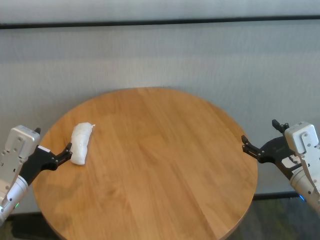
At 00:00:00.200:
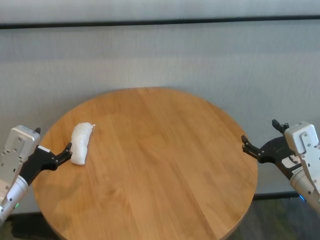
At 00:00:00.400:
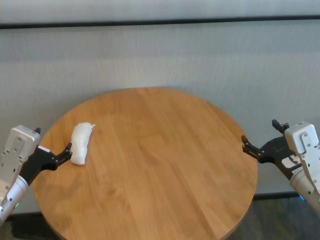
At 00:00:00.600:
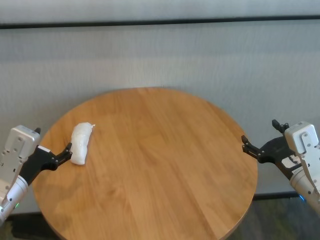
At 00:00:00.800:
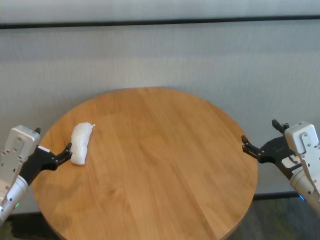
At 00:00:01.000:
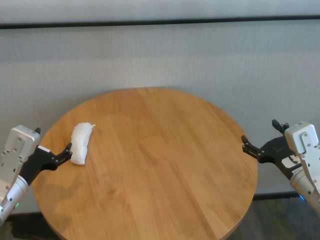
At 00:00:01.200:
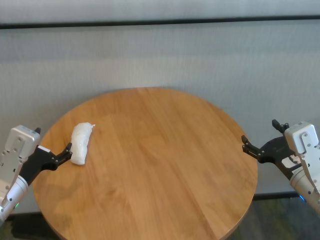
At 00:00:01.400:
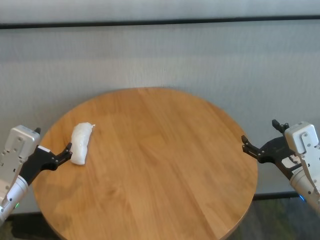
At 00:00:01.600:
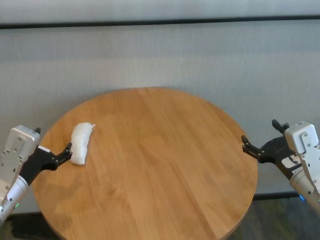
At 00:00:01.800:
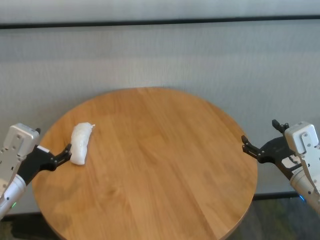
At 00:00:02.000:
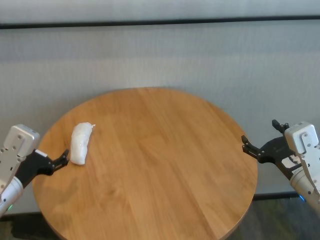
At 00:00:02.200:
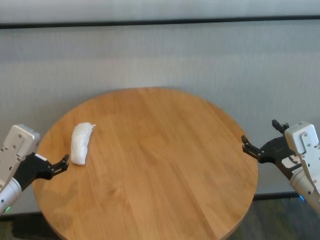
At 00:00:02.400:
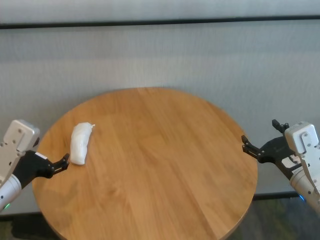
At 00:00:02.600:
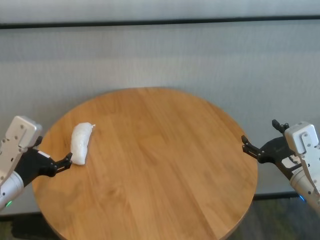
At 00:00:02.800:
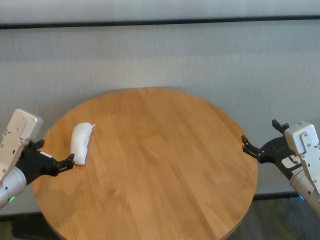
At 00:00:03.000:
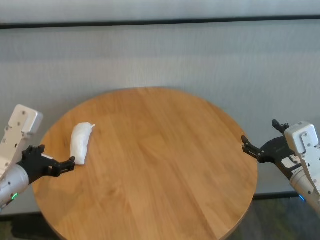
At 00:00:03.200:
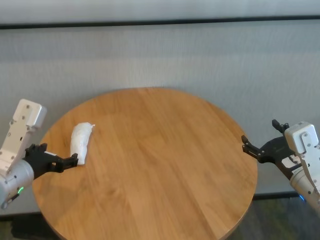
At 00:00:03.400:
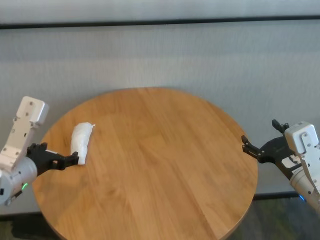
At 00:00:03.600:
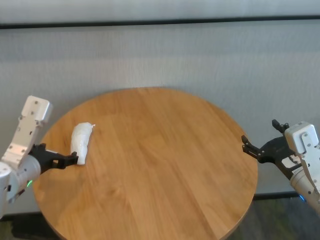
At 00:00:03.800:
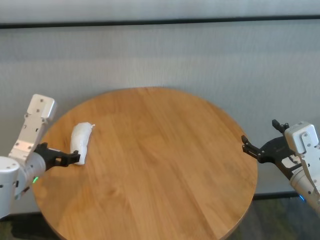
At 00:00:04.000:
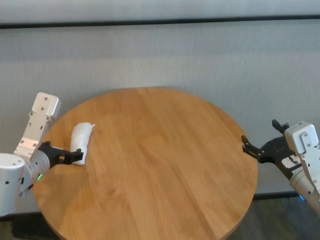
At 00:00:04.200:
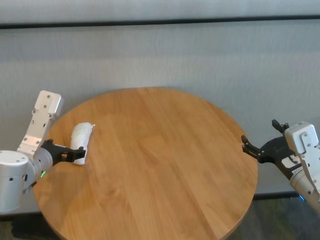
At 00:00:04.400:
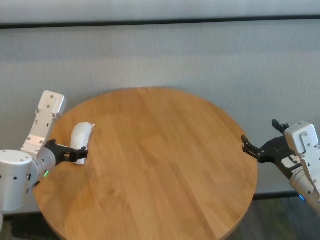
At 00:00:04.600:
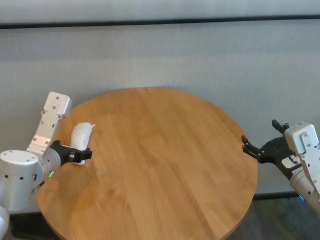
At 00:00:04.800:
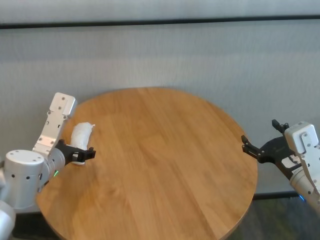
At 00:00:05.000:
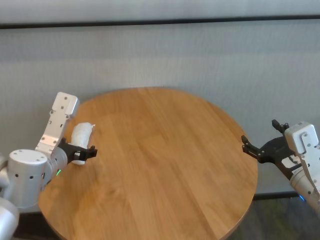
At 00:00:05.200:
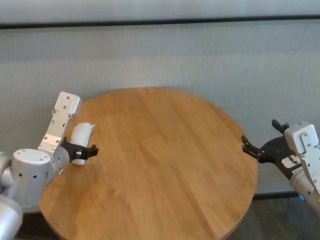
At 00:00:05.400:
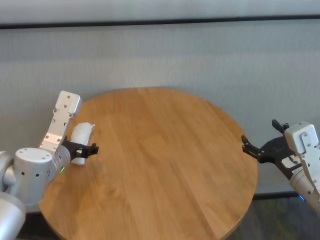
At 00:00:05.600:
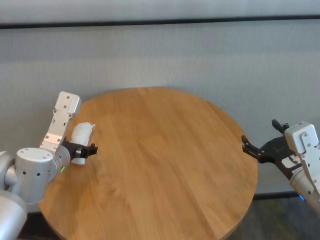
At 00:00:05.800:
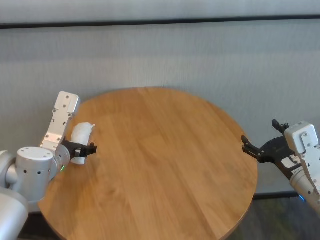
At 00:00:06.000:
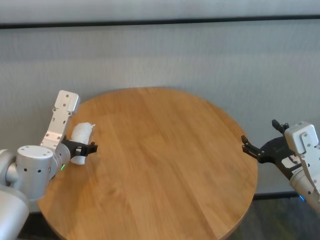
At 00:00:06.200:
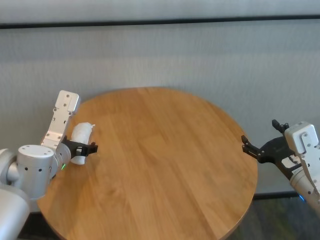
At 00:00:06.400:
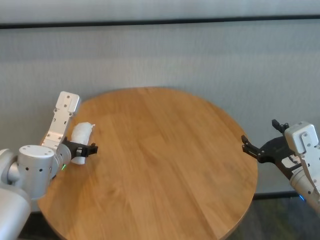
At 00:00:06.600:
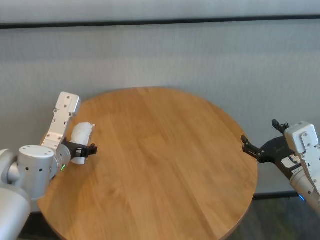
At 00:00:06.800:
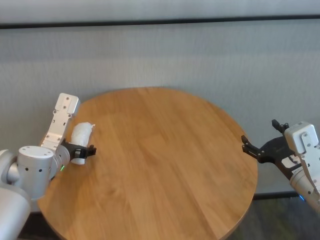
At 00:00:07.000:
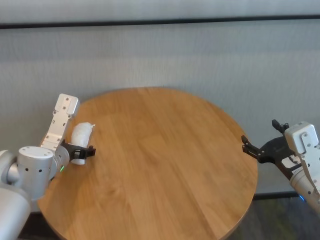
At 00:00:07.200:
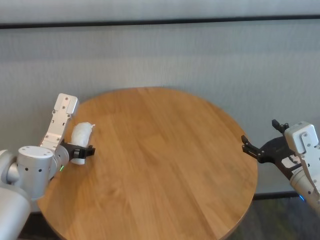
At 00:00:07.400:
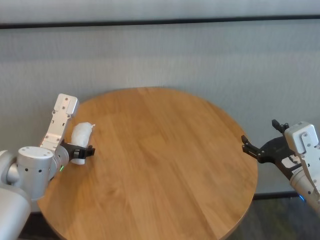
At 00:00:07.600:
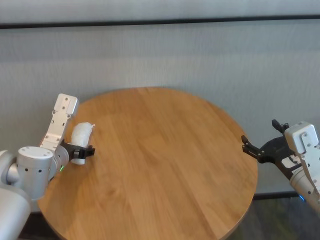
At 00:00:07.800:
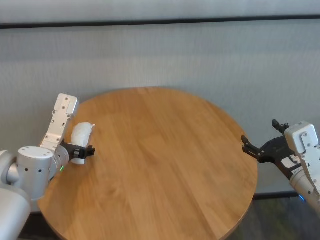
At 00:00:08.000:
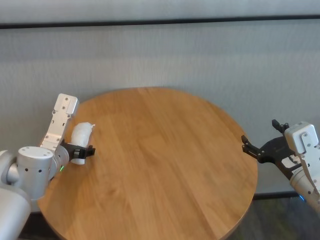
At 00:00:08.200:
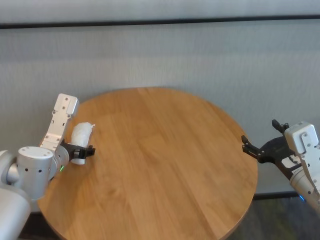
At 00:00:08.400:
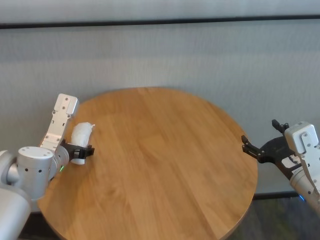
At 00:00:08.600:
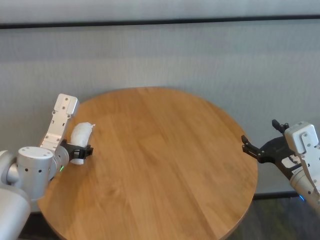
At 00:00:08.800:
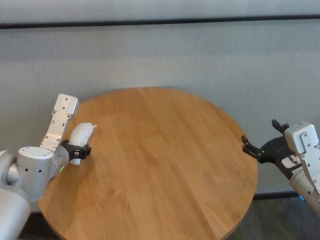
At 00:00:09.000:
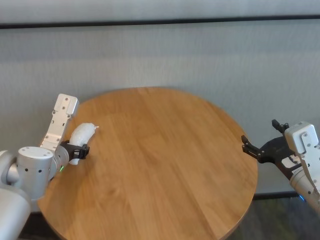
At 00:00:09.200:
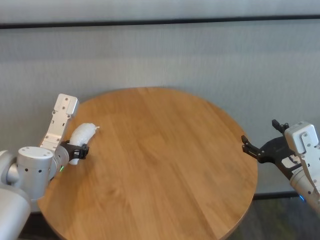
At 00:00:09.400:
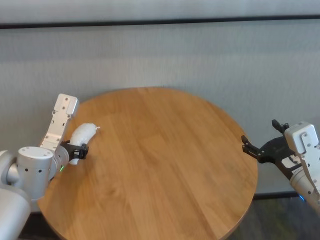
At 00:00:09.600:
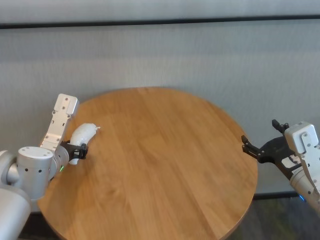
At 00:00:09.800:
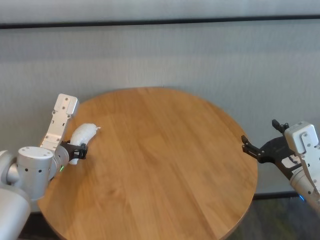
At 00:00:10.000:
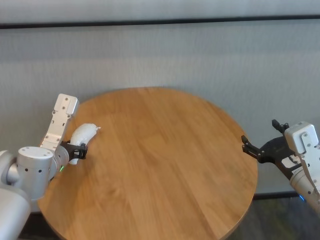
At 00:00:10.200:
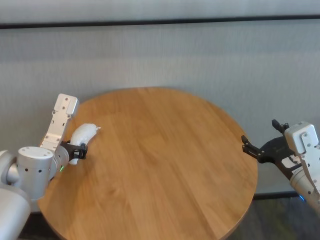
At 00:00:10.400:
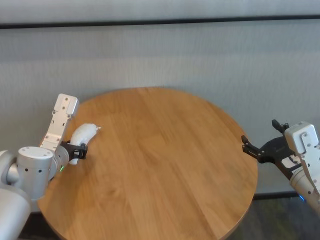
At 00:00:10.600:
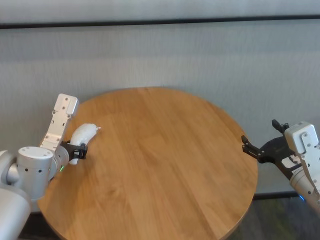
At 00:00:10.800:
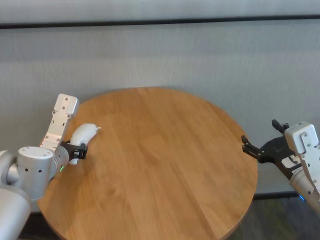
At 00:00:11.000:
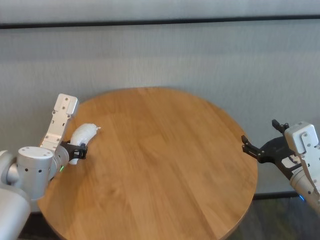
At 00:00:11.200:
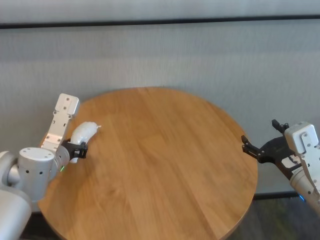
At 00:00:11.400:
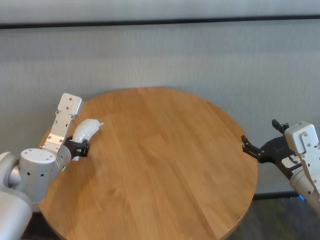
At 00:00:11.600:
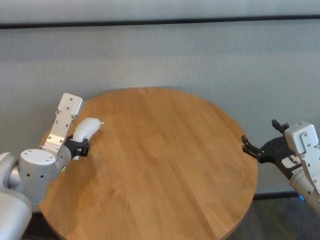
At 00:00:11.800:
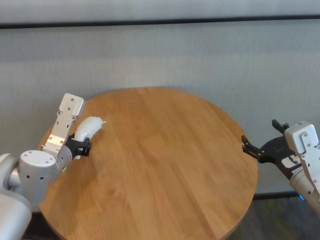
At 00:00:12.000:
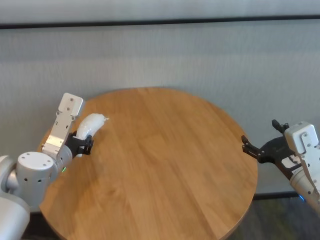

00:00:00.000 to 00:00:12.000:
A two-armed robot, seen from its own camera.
Task of the whole recording: One hand took the sandbag from the other hand and placed it on the table.
Step, 00:00:00.000 to 00:00:09.800: Grasp the paper ball with left gripper.

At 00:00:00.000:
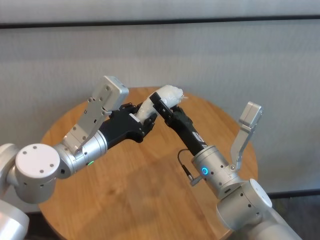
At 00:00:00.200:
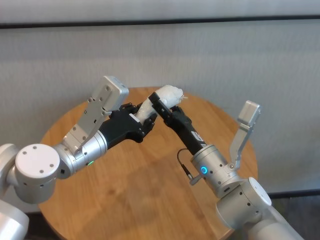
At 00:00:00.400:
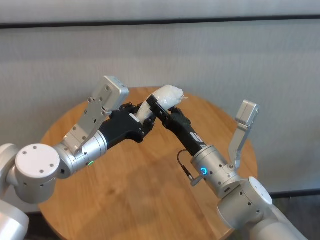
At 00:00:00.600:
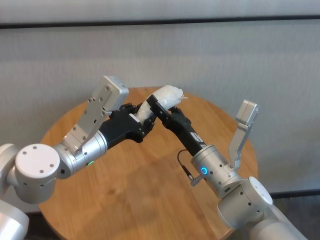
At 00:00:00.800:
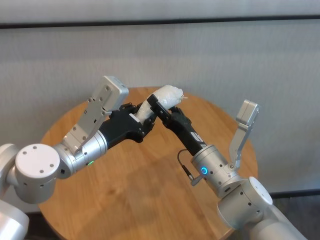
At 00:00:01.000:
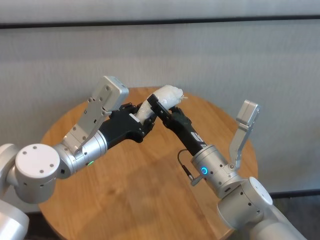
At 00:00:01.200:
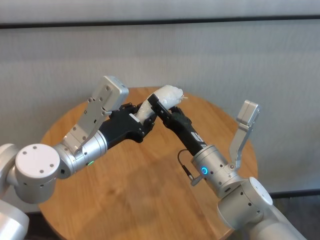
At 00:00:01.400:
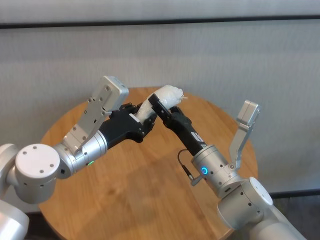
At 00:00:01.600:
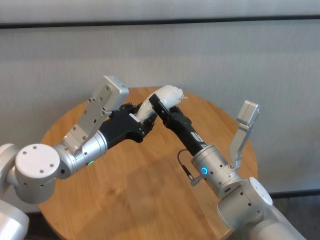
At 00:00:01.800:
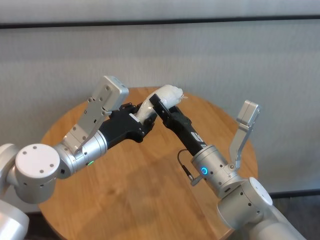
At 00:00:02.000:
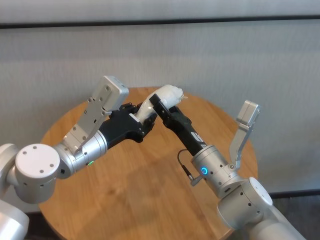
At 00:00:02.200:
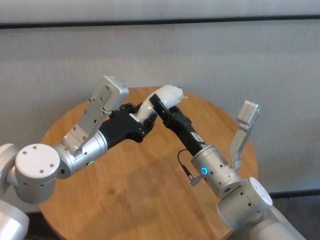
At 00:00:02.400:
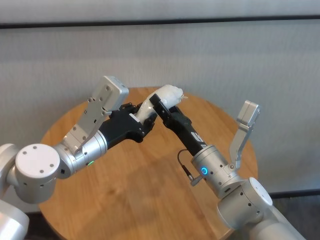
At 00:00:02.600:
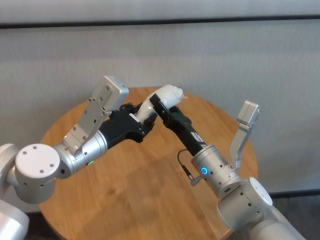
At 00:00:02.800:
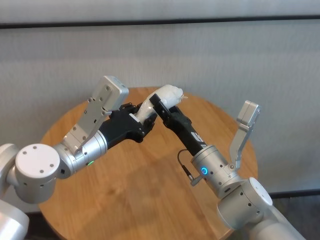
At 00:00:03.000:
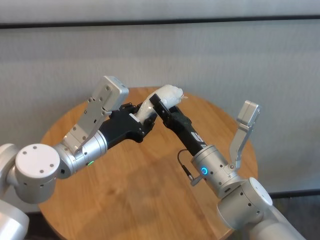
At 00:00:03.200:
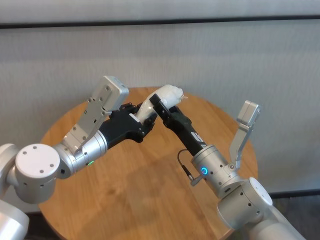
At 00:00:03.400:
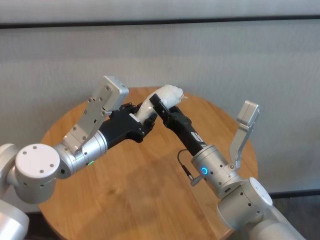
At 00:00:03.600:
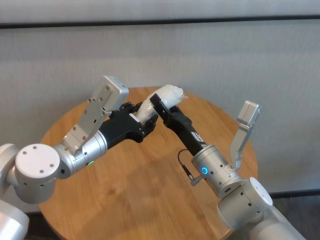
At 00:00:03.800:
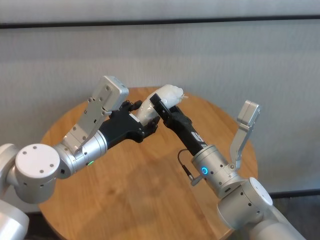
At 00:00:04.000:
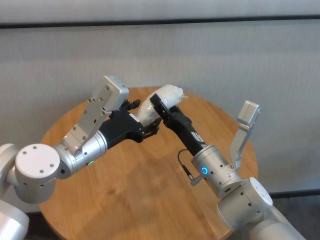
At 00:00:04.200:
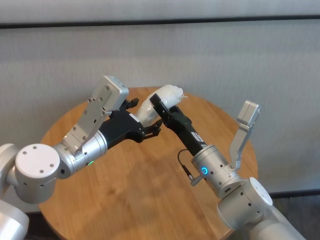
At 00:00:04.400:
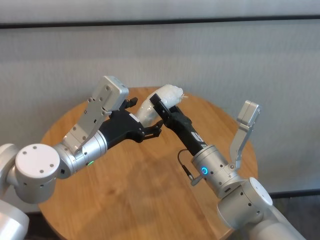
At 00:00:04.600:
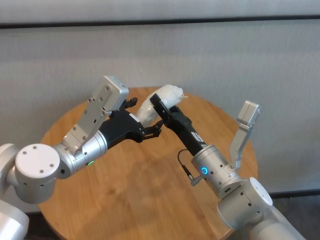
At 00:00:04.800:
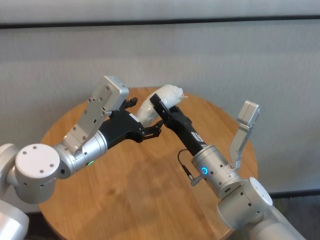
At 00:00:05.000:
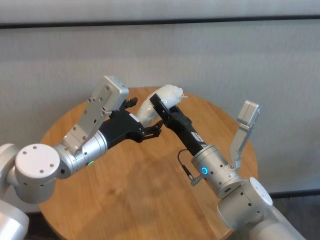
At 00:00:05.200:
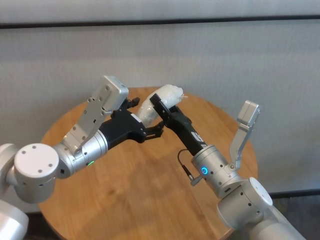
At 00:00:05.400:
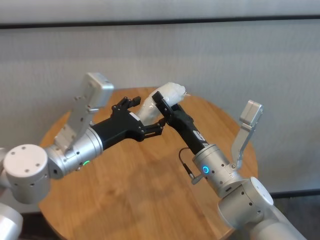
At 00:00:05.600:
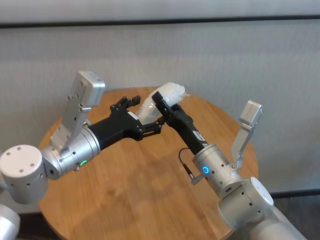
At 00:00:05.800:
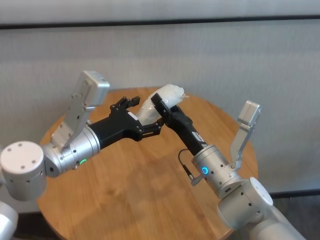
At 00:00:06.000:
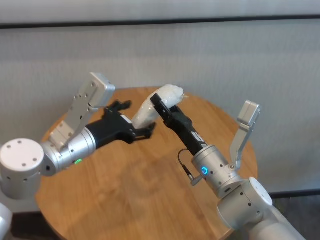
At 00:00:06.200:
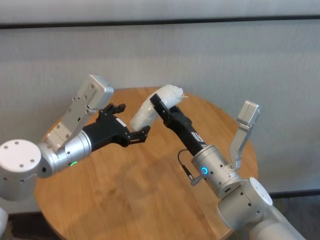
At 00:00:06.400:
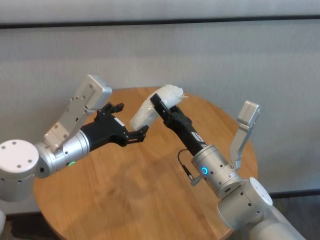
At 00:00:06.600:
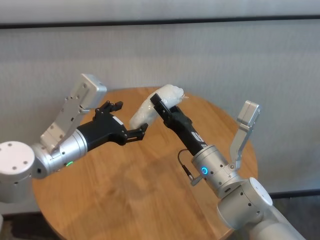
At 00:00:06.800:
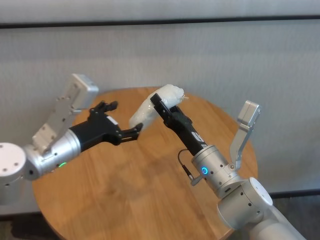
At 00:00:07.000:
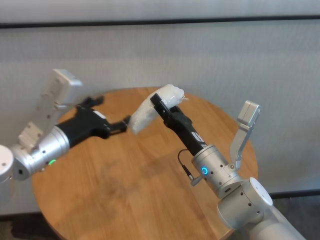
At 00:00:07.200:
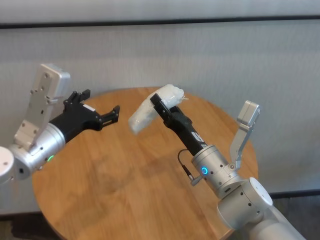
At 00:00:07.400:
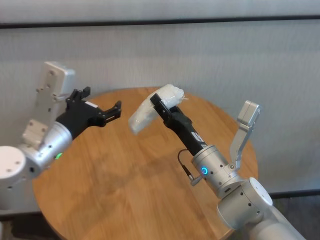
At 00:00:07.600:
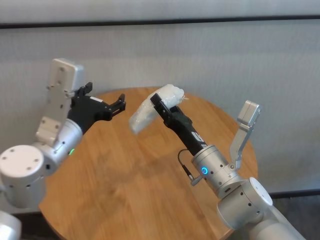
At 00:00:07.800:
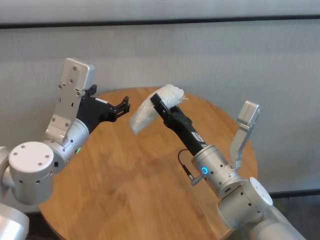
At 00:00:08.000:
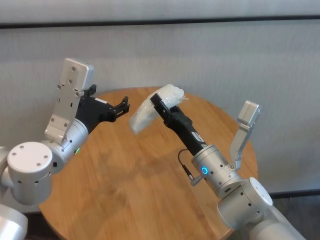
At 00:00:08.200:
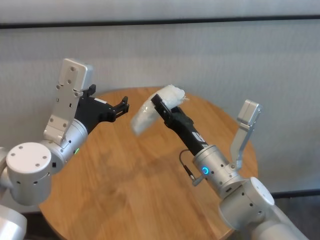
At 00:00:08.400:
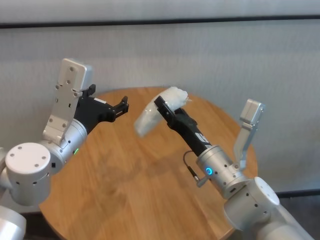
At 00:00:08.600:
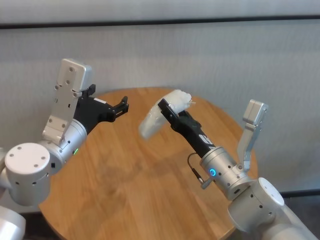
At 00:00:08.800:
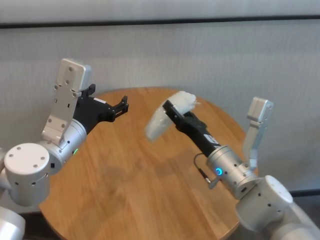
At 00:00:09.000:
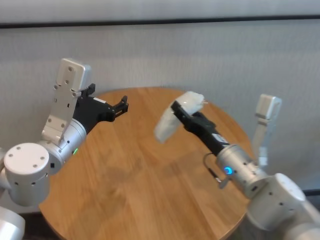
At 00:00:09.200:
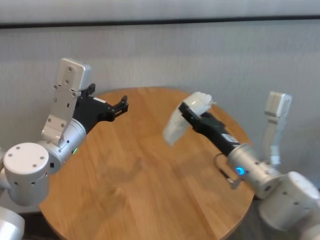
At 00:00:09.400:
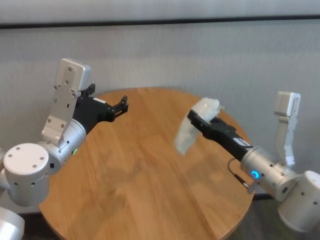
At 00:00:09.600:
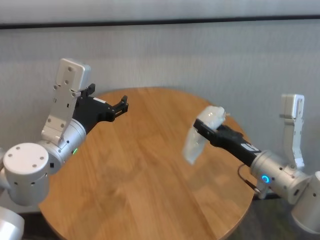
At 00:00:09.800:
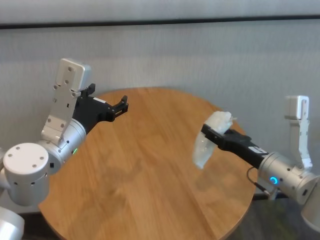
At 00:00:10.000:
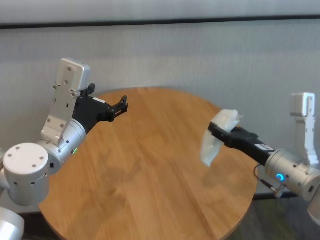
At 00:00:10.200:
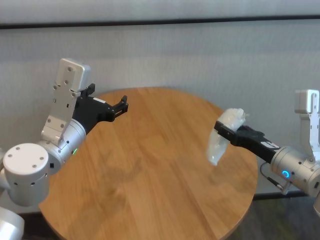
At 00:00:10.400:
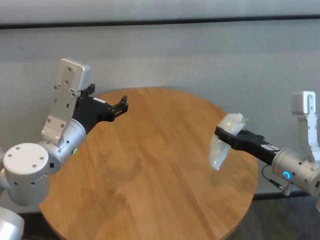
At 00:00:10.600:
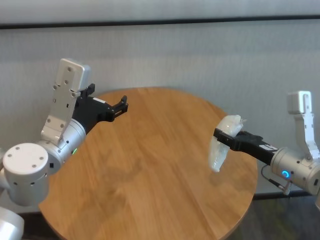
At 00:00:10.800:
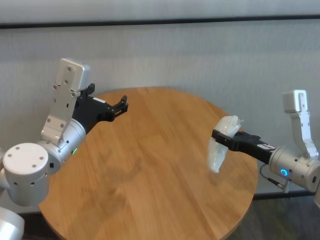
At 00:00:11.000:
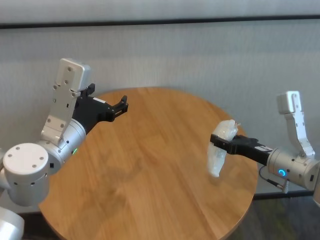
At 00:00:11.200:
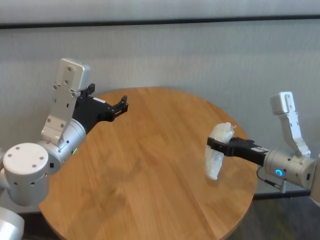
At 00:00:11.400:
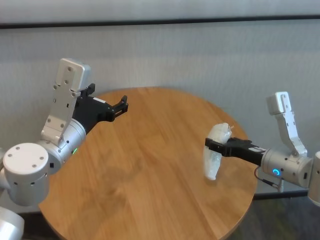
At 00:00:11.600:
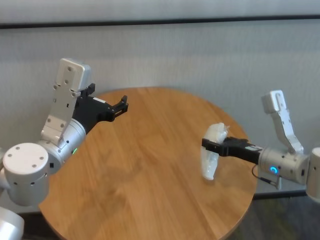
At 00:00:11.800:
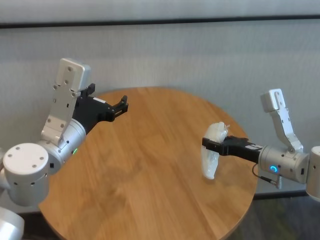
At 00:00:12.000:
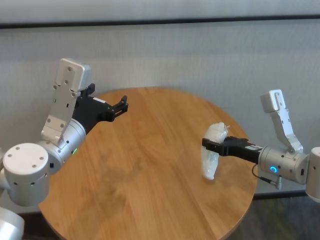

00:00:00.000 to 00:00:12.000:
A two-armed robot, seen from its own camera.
Task of the whole recording: One hand took the sandbag from the other hand and placed it on the table.
Step, 00:00:00.000 to 00:00:07.000: Pass the paper ball to the right gripper.
